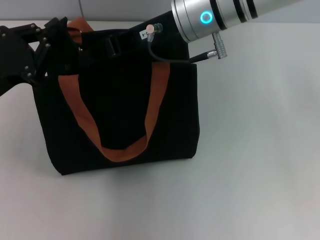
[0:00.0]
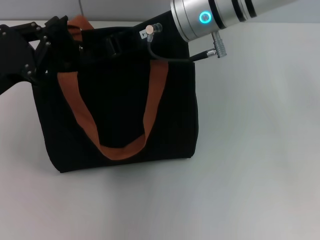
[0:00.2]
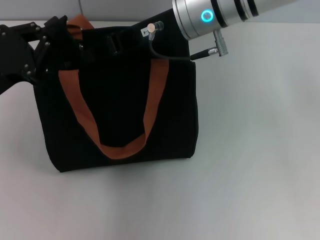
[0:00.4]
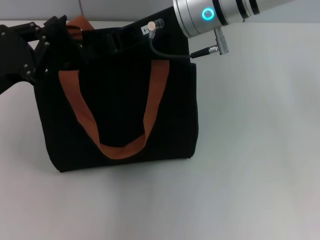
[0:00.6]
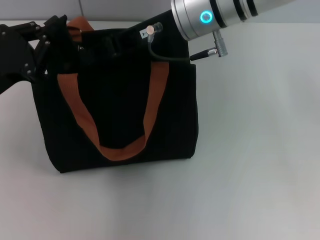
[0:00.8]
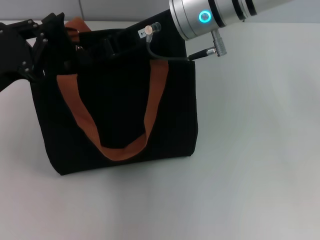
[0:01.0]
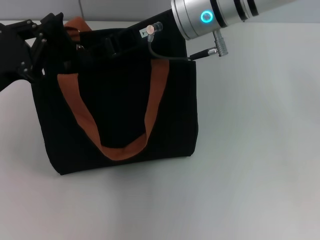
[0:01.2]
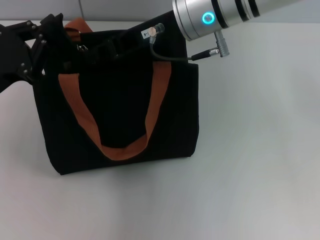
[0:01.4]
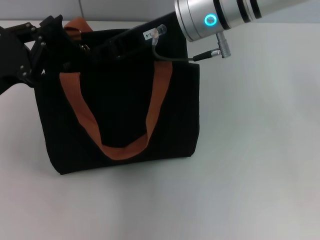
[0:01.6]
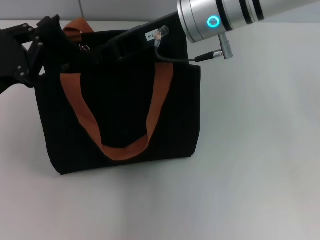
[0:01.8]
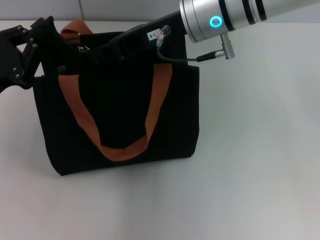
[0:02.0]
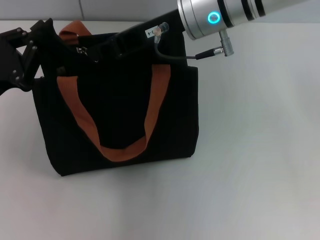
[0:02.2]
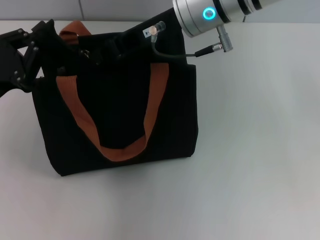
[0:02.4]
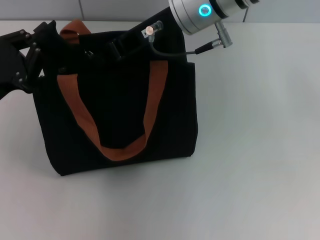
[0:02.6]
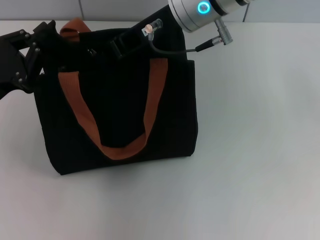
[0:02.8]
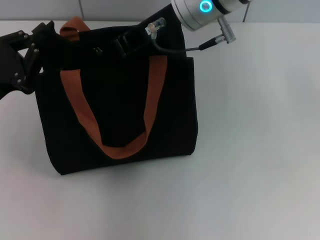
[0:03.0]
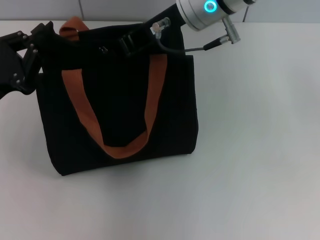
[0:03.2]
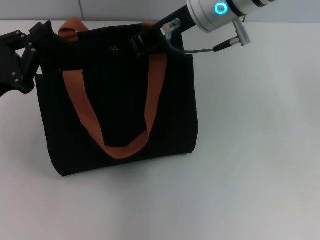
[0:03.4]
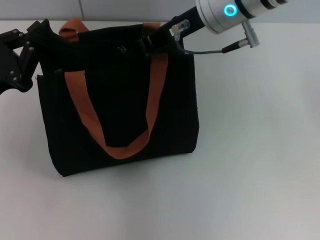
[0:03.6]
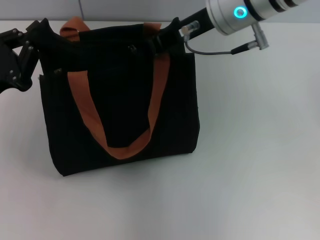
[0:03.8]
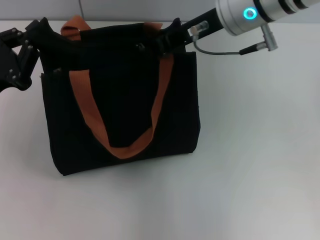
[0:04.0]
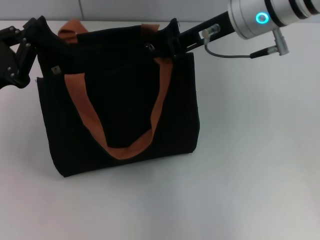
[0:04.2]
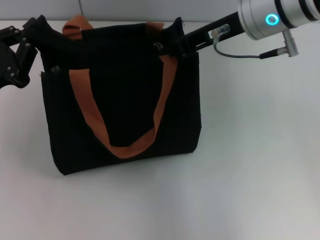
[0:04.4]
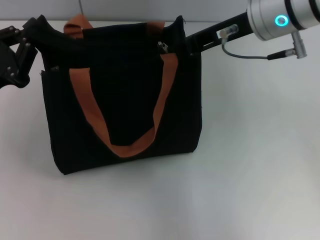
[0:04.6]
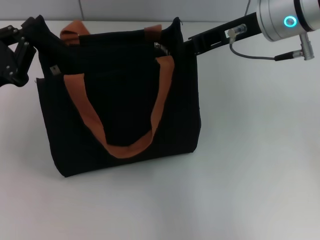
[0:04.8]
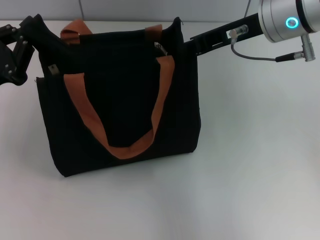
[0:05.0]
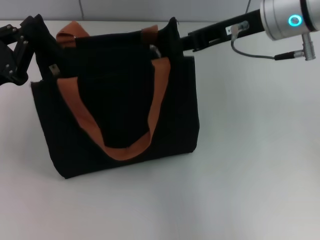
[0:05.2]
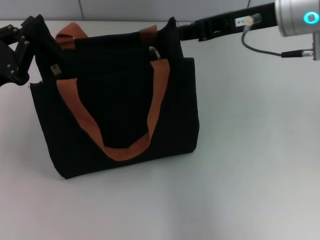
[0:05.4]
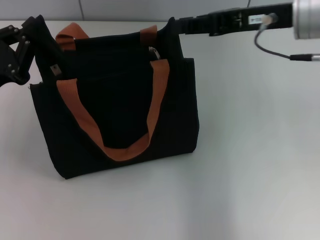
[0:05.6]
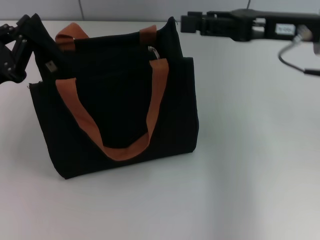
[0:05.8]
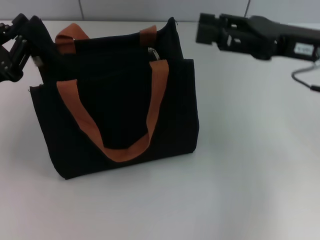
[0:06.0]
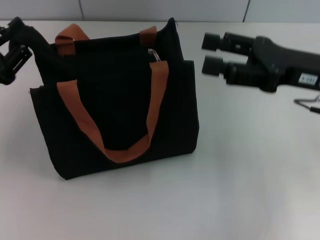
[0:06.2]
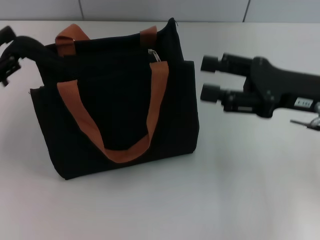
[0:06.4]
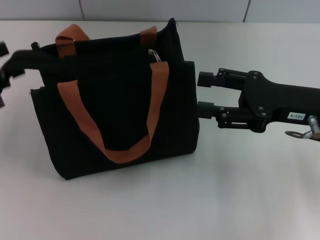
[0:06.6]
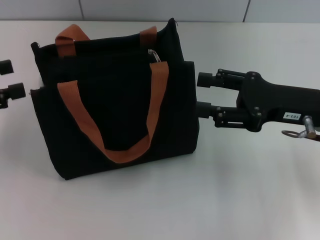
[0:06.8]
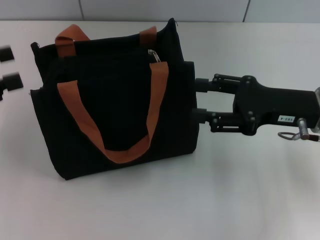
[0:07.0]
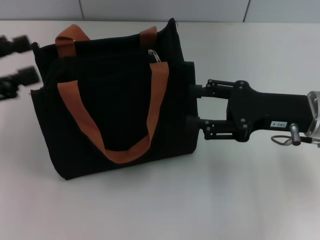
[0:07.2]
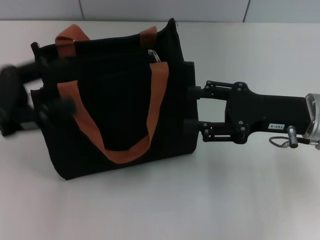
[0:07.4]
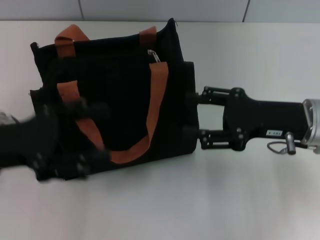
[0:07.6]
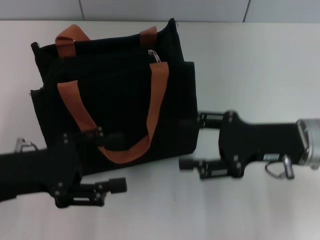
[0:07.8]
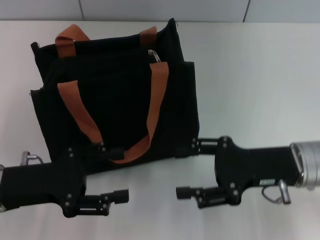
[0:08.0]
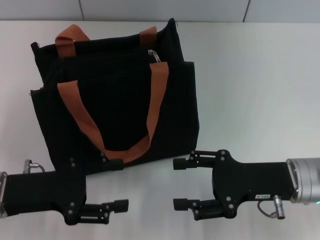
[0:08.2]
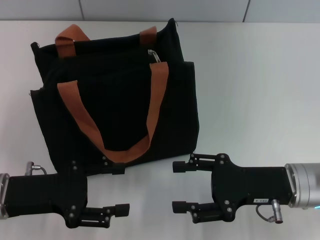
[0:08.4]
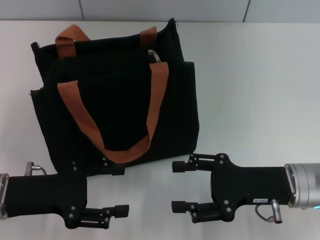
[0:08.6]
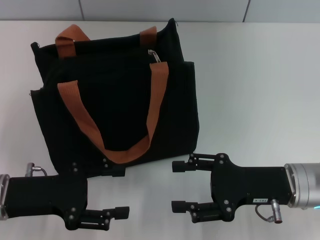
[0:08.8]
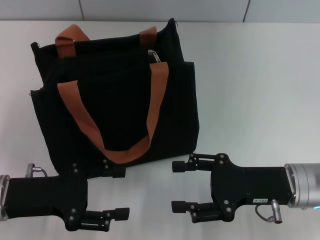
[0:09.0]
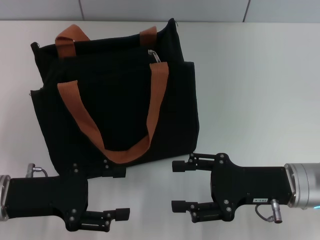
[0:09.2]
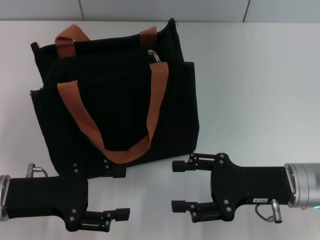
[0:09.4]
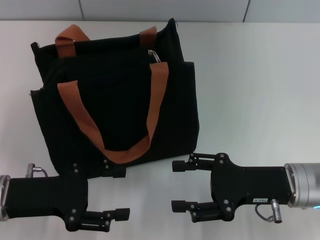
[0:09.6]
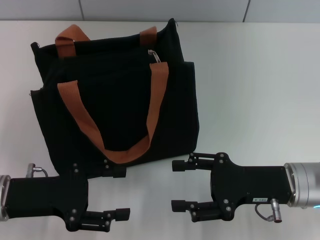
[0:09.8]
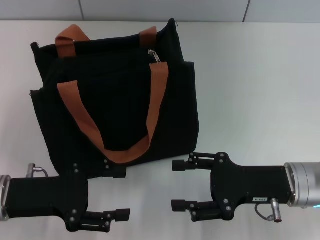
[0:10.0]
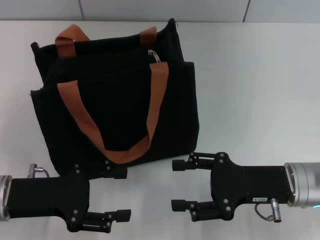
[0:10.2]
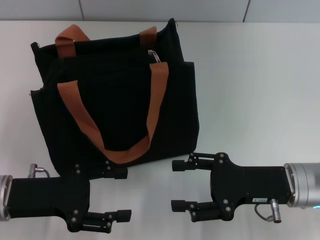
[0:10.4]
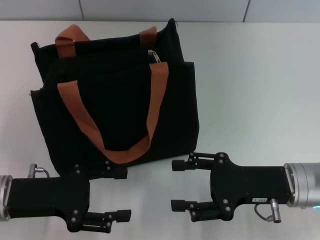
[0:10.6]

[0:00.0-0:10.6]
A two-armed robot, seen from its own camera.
Step, 0:00.0 to 0:04.8: Pull up the zipper with your right hand.
Step, 0:05.0 to 0:06.8: Grab the zipper with your left hand.
0:00.0 to 0:03.0: The grippers move only a little.
0:03.0 to 0:04.6: The right gripper goes about 10 cm to the right.
0:04.6 to 0:06.0: The right gripper moves to the right and downward, approximately 10 cm, and opens up.
0:06.0 to 0:07.6: The left gripper reaches about 5 cm to the left, then returns, and opens. The right gripper is displaced downward by roughly 5 cm.
0:07.6 to 0:09.0: The right gripper is displaced backward and downward by about 10 cm. The left gripper moves downward, roughly 5 cm.
0:09.0 to 0:10.6: Neither gripper changes place.

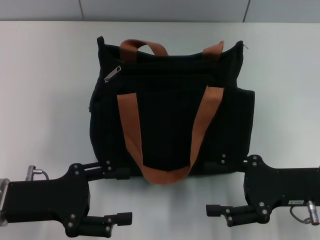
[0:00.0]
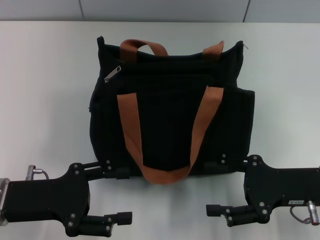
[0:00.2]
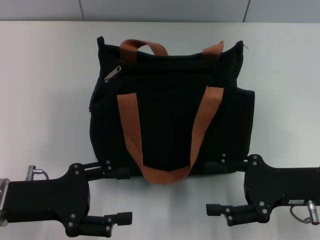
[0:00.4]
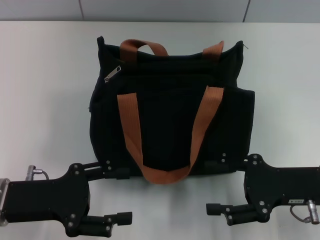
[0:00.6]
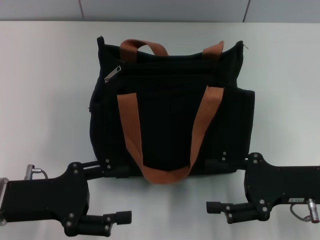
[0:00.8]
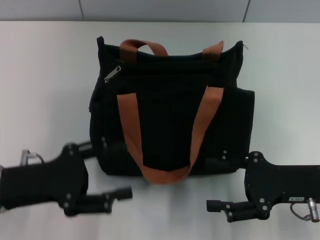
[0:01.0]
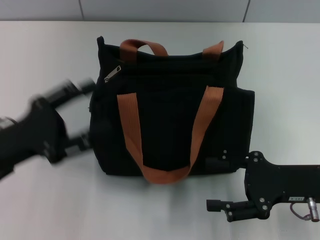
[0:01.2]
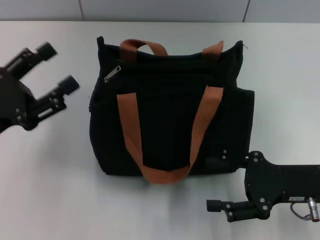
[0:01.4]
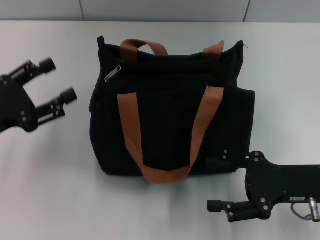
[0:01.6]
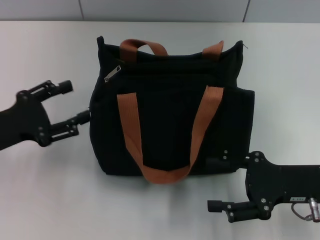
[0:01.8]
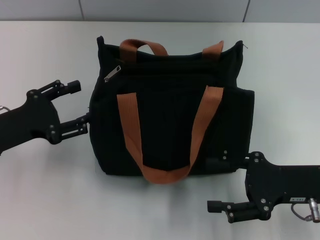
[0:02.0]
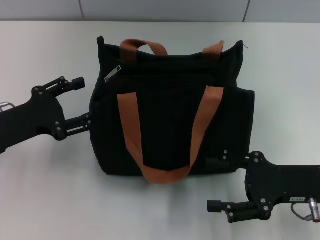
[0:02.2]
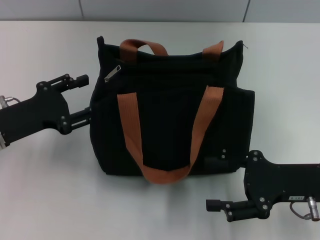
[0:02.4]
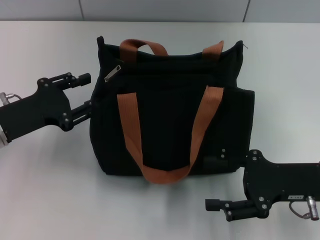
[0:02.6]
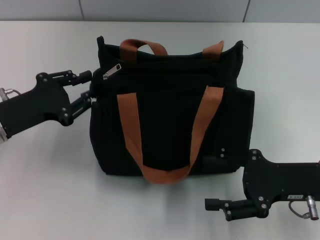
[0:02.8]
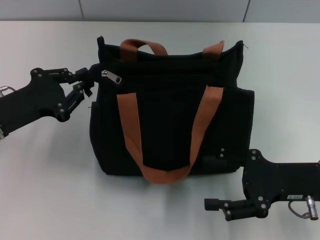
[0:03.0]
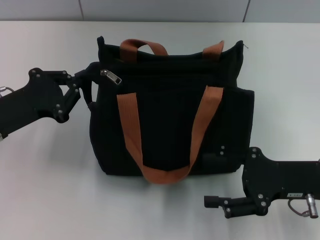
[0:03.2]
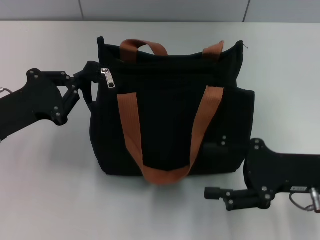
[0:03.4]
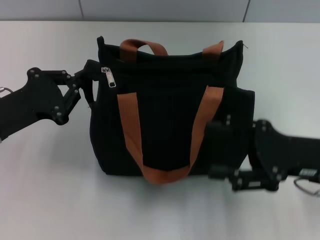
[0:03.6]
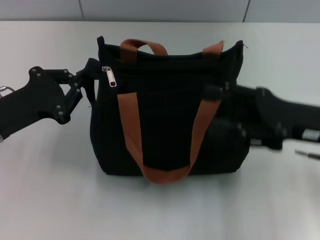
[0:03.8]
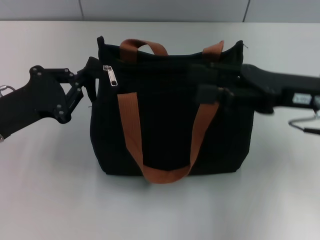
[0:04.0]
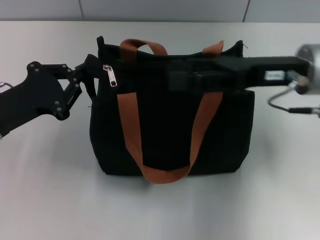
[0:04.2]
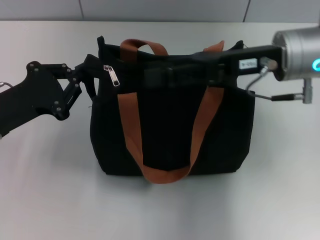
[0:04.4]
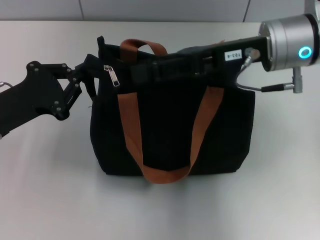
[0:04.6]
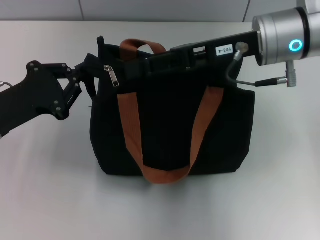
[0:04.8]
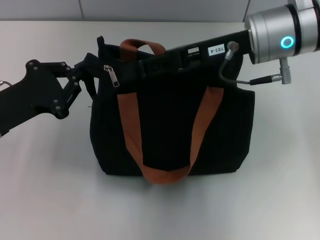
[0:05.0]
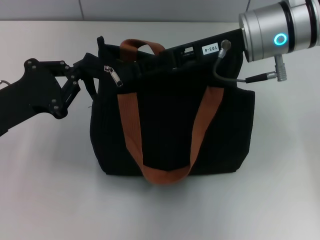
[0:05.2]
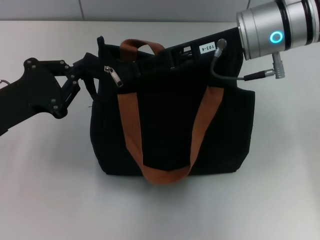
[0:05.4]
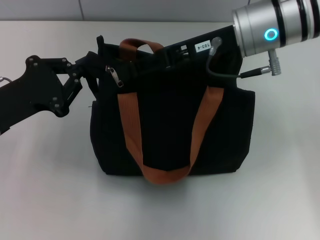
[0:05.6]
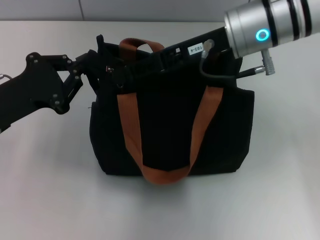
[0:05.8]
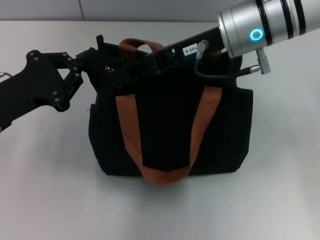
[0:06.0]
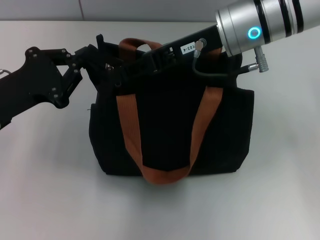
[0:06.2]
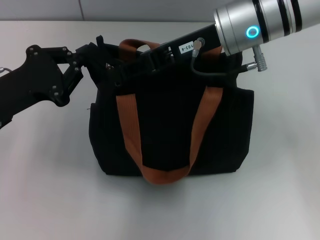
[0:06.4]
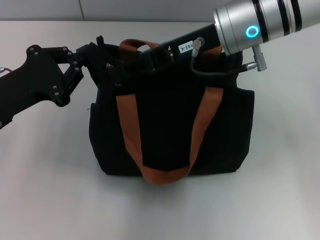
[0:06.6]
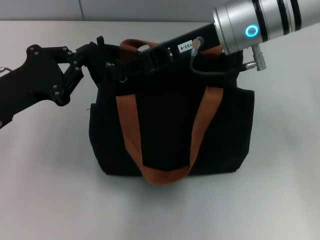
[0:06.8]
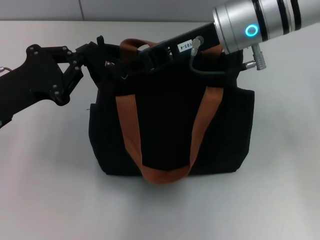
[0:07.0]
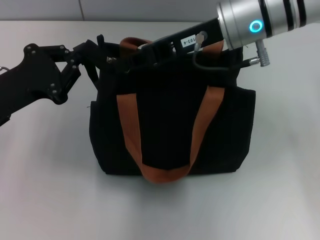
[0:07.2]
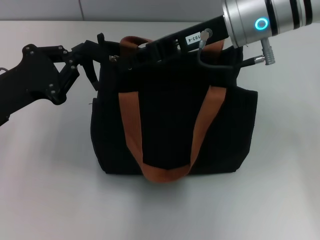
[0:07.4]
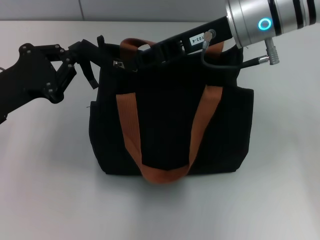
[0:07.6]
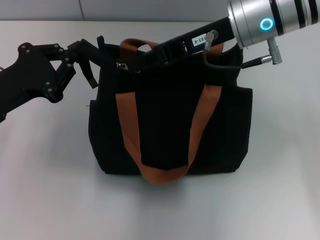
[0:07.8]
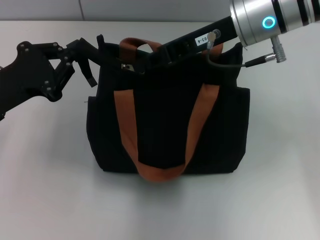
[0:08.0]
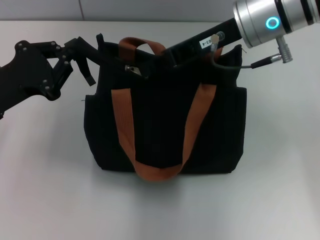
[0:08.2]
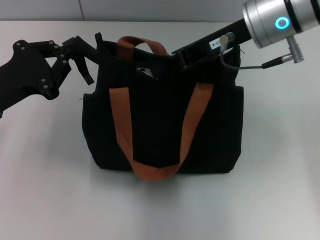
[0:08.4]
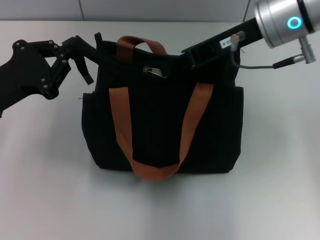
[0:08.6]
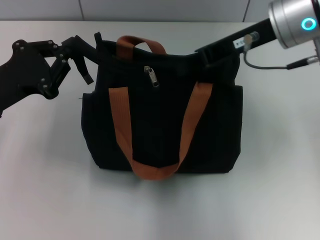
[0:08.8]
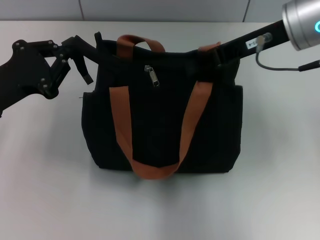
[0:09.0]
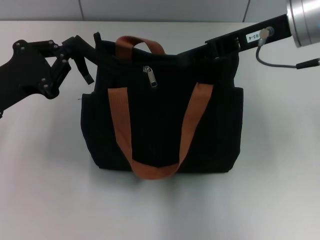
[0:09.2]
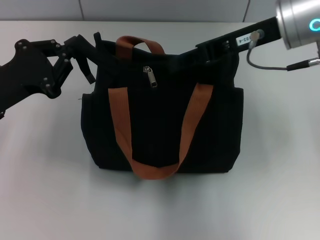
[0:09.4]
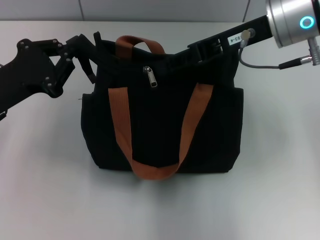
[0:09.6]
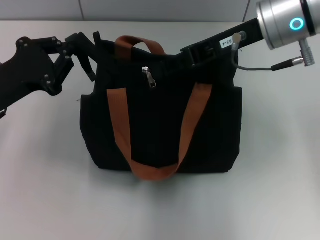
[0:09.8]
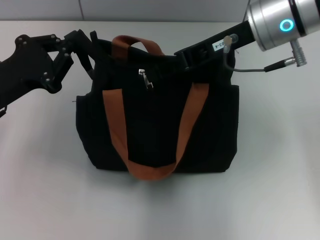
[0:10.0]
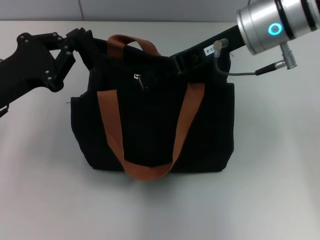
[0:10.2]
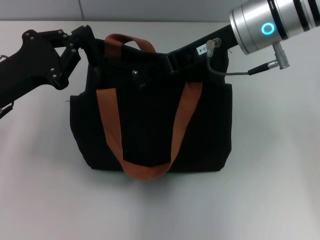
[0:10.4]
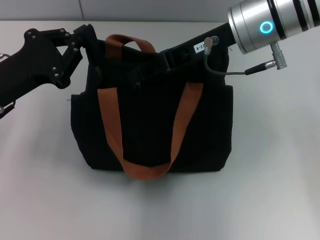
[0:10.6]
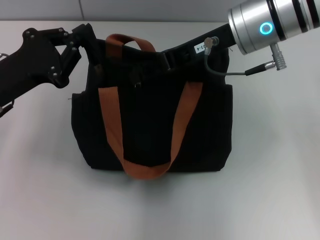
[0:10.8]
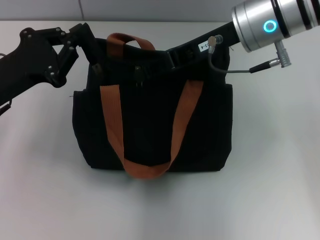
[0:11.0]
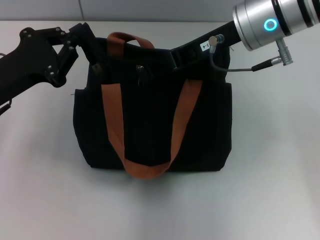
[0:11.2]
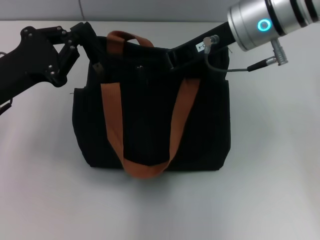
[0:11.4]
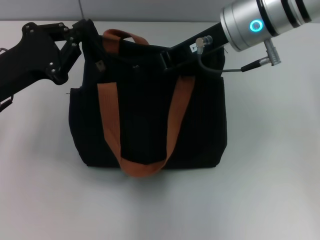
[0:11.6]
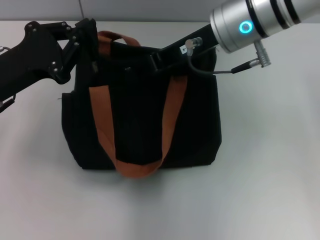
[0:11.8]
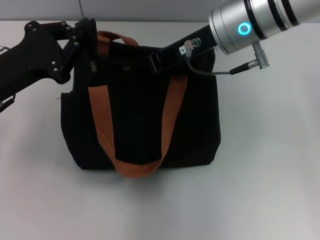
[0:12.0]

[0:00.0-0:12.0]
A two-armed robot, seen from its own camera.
0:00.0 to 0:01.6: The left gripper moves to the left, some 5 cm.
0:01.6 to 0:03.0: The left gripper closes its fingers.
0:03.0 to 0:04.4: The left gripper closes its fingers. Meanwhile the right gripper is displaced upward, forward and to the left by some 20 cm.
0:04.4 to 0:06.0: The right gripper goes roughly 5 cm to the left, and closes its fingers.
0:06.0 to 0:07.6: The right gripper closes.
0:07.6 to 0:09.0: The right gripper shifts approximately 5 cm to the right.
0:09.0 to 0:10.4: The right gripper goes some 5 cm to the left, and opens its fingers.
